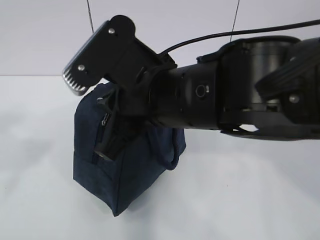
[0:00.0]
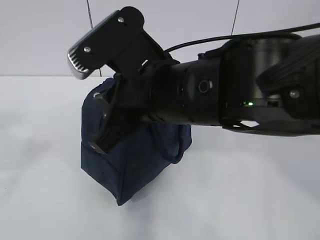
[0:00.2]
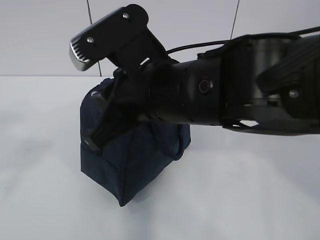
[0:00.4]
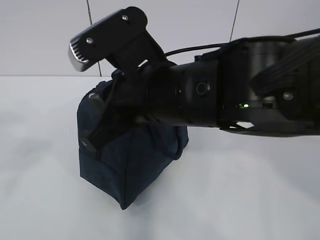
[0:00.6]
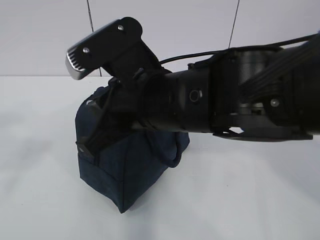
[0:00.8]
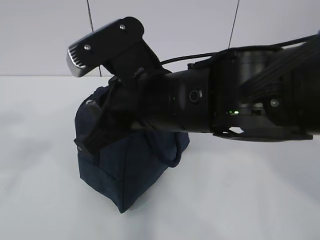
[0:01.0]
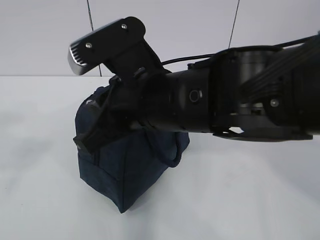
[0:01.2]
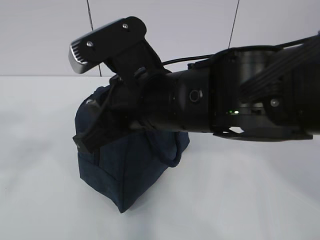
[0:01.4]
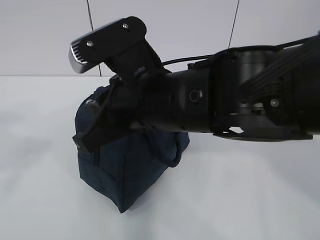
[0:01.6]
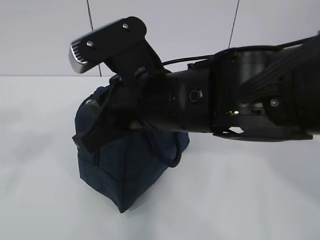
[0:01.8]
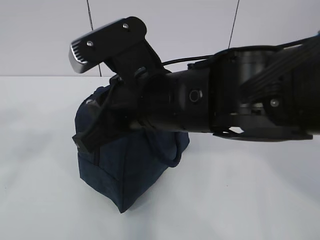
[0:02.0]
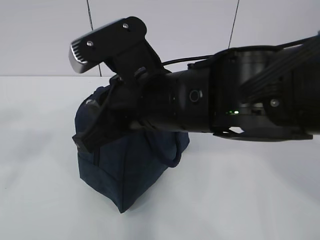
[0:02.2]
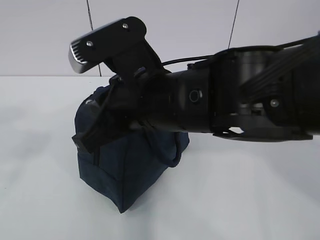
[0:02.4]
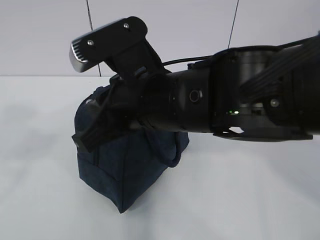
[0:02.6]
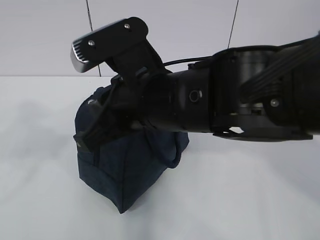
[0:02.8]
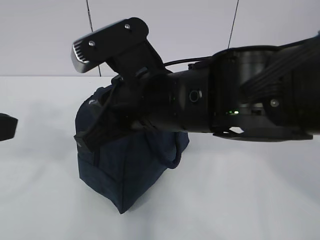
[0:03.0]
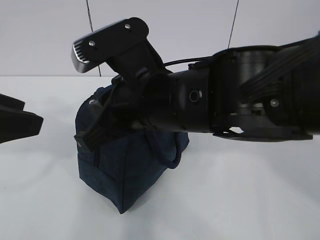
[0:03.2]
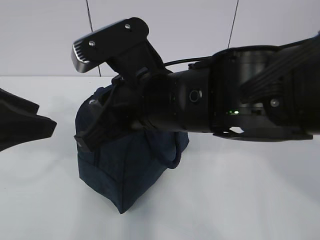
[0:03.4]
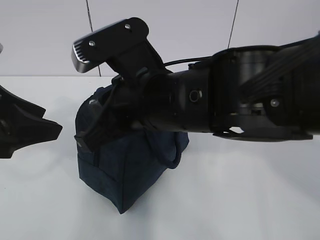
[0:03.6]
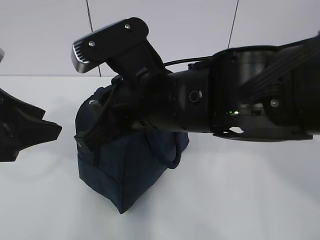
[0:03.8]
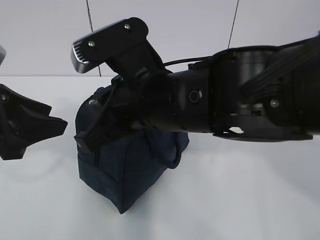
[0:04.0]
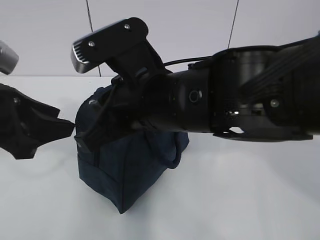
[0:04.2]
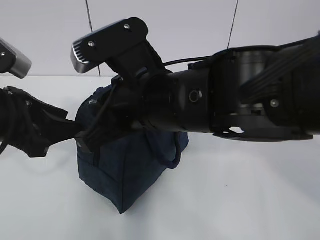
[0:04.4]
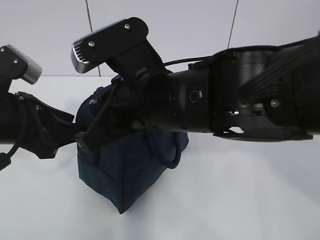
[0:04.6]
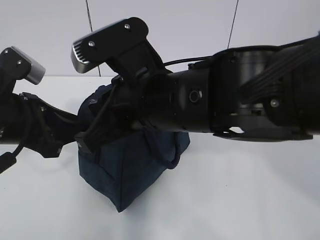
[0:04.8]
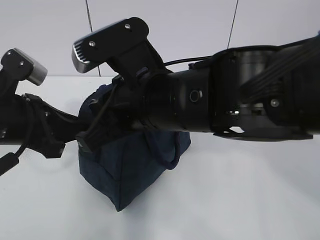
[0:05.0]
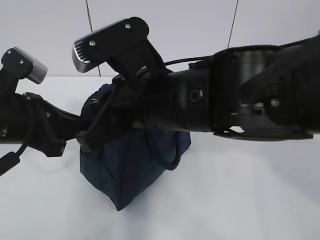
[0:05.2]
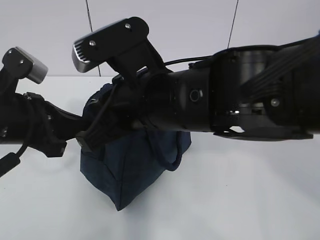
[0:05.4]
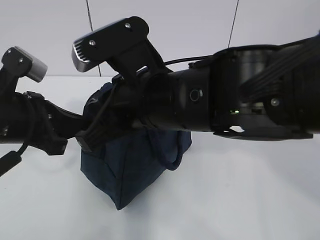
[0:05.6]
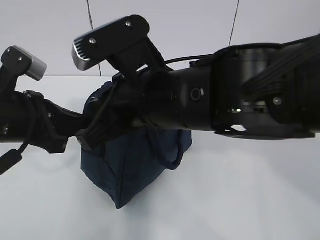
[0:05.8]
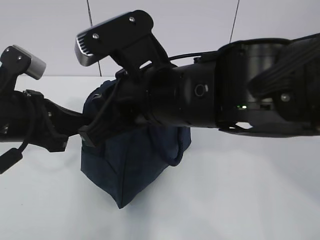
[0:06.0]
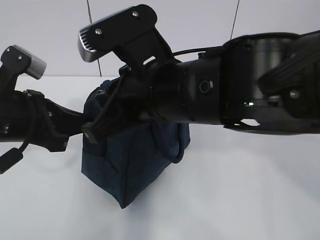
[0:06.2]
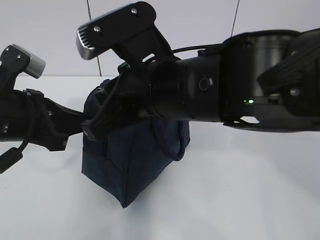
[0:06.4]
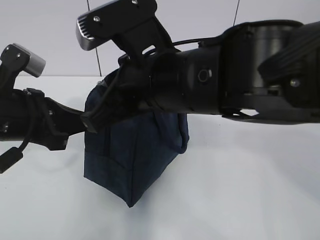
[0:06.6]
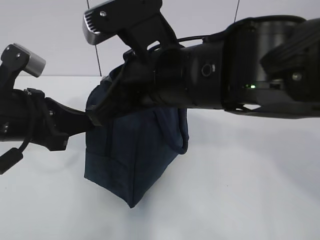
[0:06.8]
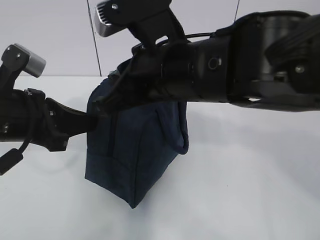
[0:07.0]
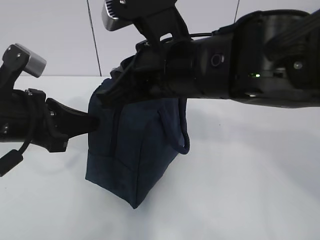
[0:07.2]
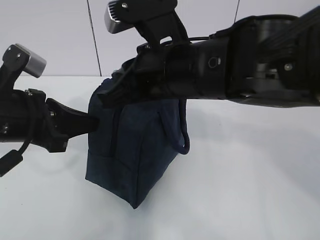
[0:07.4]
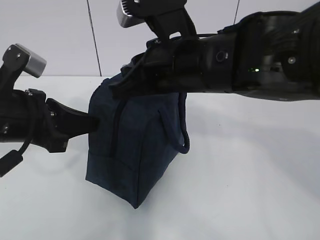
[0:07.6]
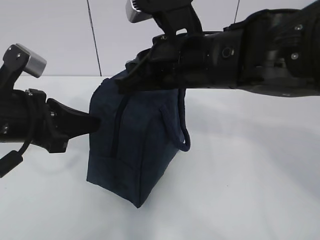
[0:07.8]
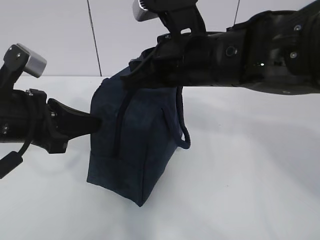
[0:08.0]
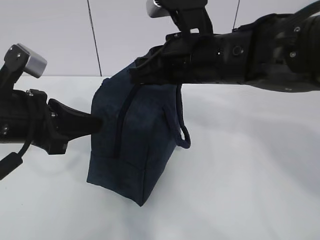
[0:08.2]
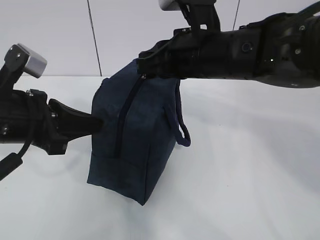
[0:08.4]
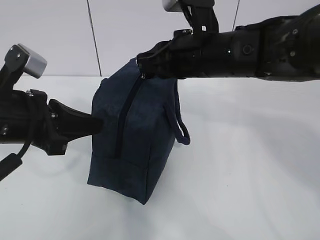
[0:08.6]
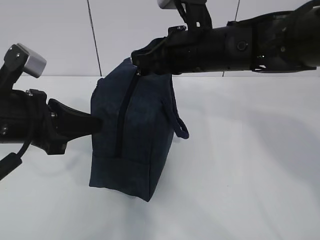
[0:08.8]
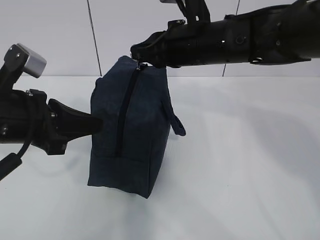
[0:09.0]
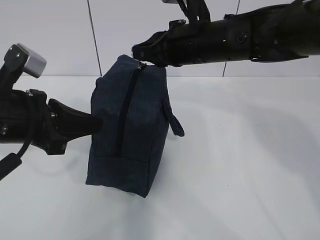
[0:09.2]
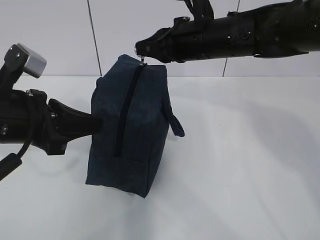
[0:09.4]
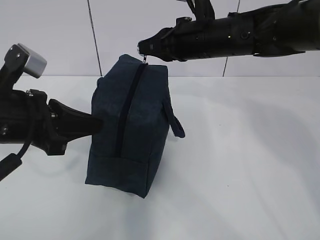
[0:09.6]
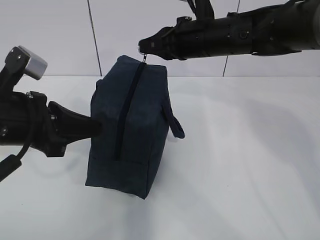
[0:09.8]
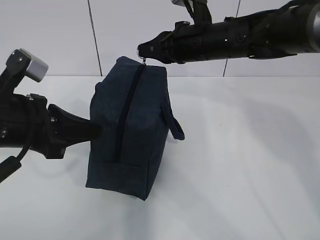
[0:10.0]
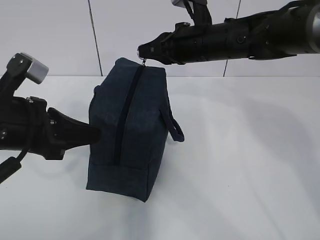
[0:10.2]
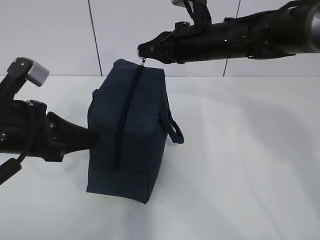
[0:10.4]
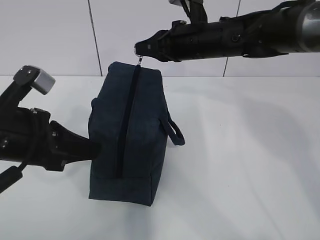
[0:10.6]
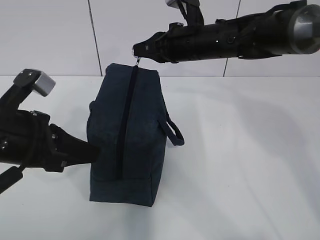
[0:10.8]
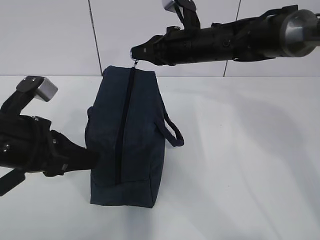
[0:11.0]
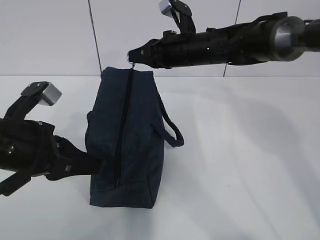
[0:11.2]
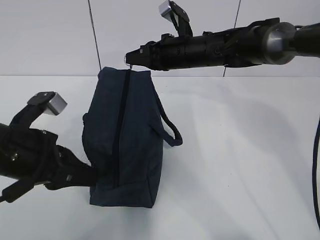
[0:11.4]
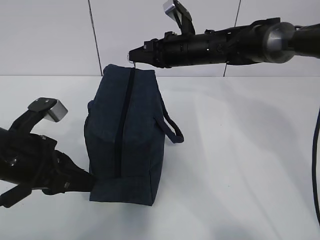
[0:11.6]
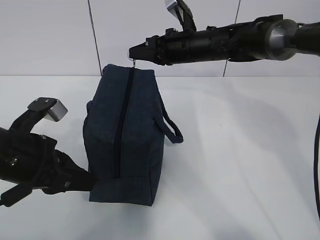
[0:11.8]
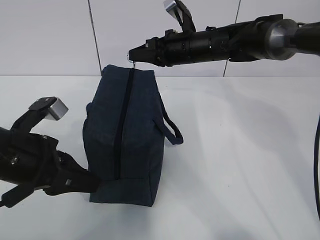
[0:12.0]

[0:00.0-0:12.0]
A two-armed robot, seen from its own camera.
Step, 0:00.0 to 0:02.4: Pull the zipper with your right hand.
Step, 0:02.8 to 0:03.2: Grab the lunch bag with your left hand.
0:01.6 to 0:03.0: The left gripper goes roughly 5 cm forward.
0:03.0 to 0:04.4: The left gripper heads forward and downward, covering roughly 15 cm.
0:04.4 to 0:06.0: The left gripper closes its fingers.
0:06.0 to 0:07.6: The right gripper ends up about 5 cm from where it was.
0:07.6 to 0:09.0: The right gripper heads forward, covering some 10 cm.
0:09.0 to 0:10.4: The right gripper travels forward by about 5 cm.
0:10.4 to 0:12.0: The right gripper is displaced forward by about 5 cm.

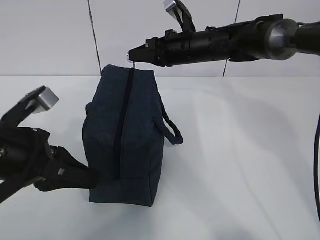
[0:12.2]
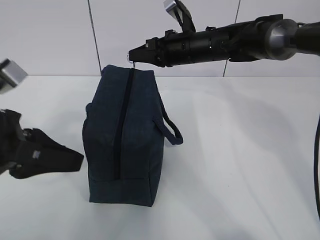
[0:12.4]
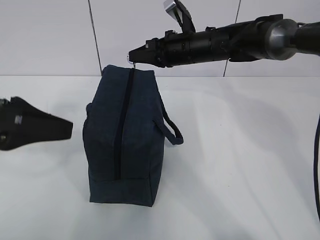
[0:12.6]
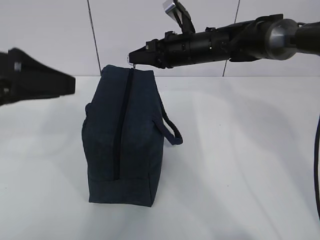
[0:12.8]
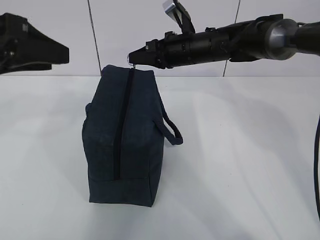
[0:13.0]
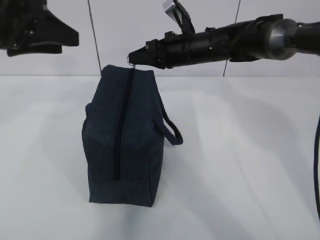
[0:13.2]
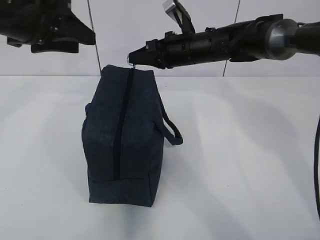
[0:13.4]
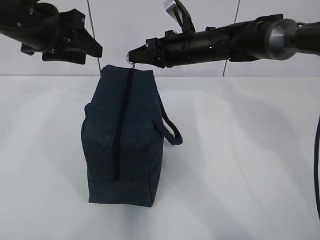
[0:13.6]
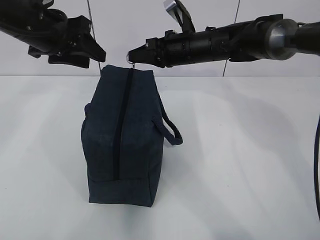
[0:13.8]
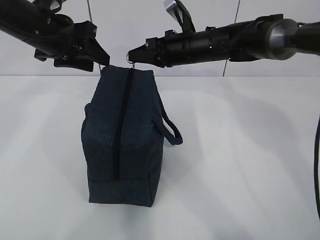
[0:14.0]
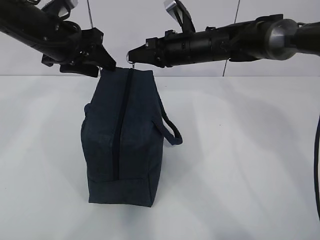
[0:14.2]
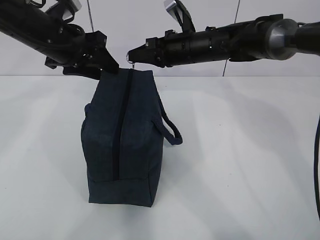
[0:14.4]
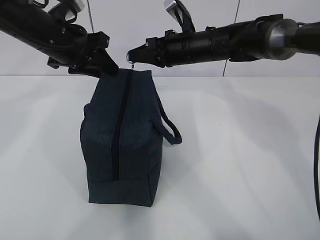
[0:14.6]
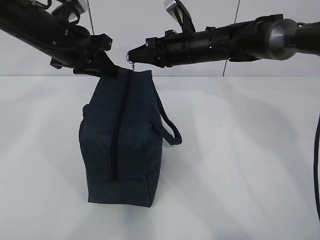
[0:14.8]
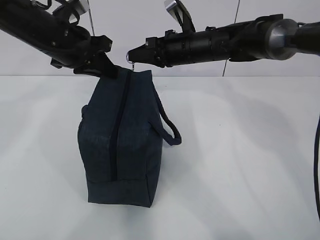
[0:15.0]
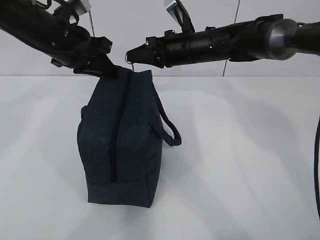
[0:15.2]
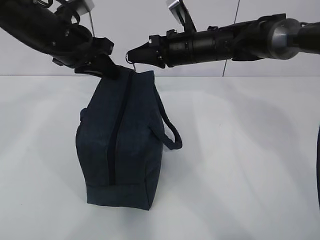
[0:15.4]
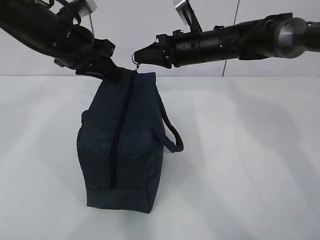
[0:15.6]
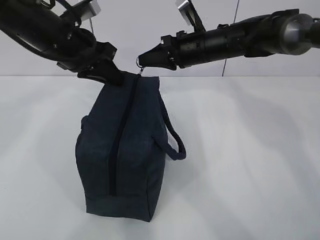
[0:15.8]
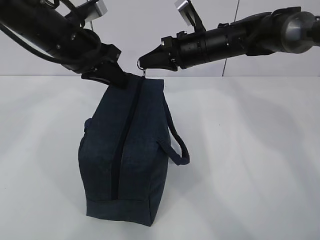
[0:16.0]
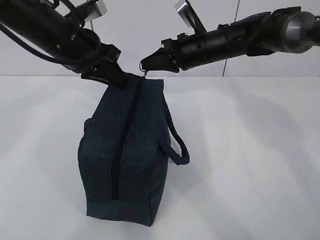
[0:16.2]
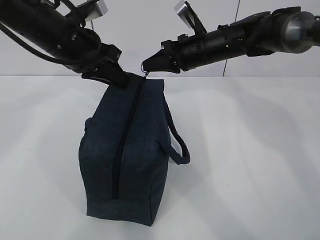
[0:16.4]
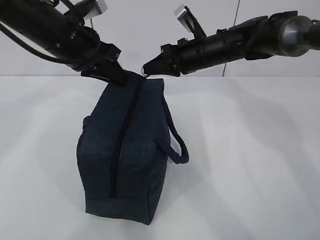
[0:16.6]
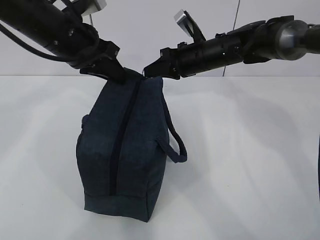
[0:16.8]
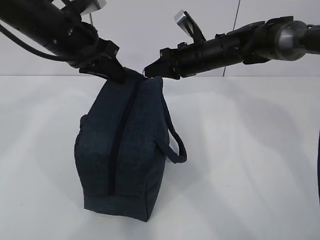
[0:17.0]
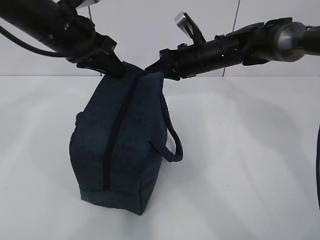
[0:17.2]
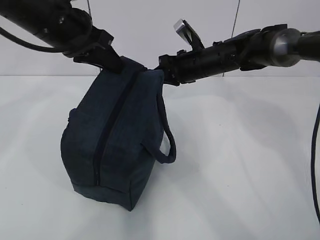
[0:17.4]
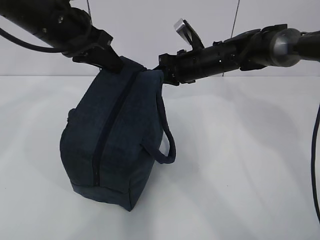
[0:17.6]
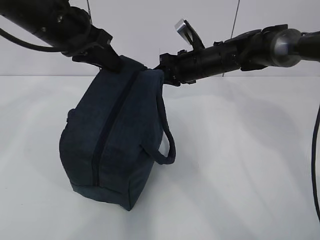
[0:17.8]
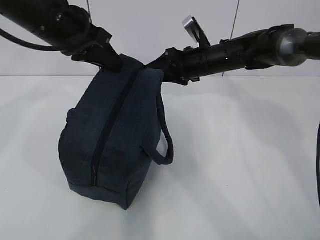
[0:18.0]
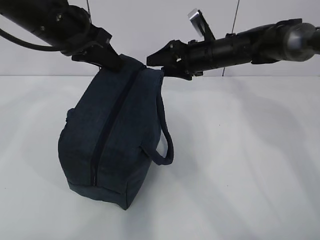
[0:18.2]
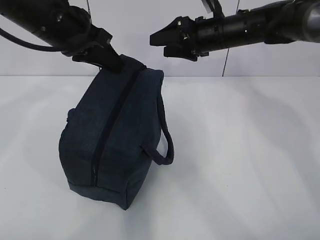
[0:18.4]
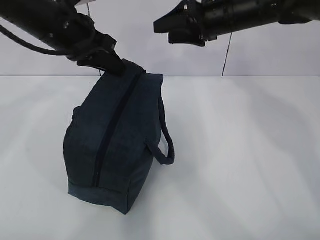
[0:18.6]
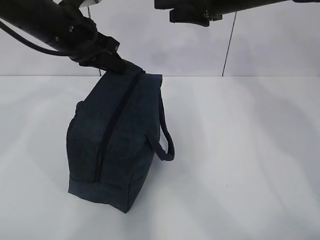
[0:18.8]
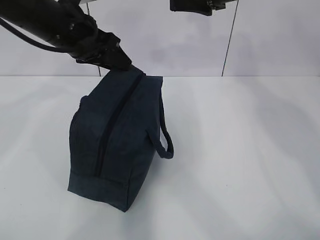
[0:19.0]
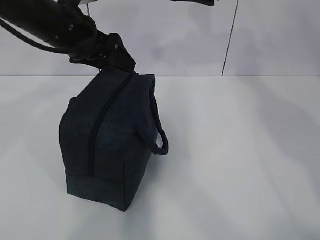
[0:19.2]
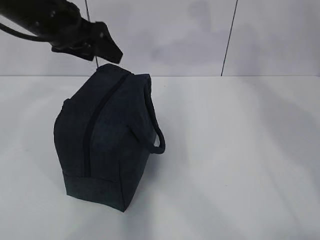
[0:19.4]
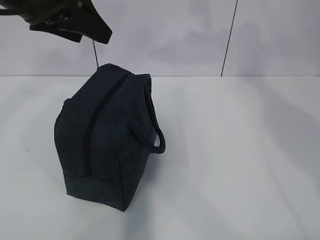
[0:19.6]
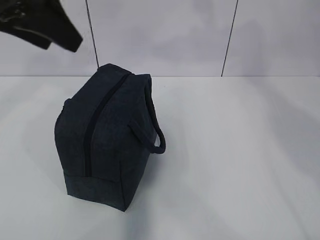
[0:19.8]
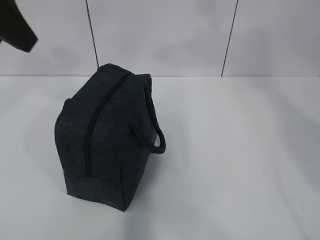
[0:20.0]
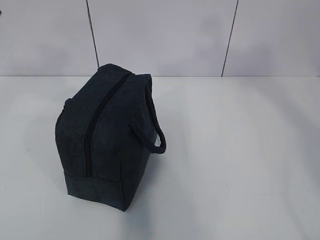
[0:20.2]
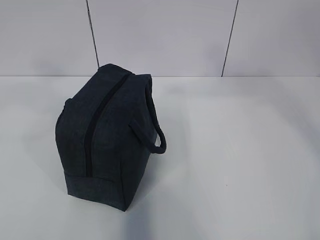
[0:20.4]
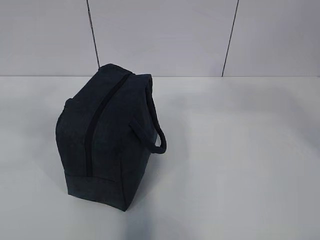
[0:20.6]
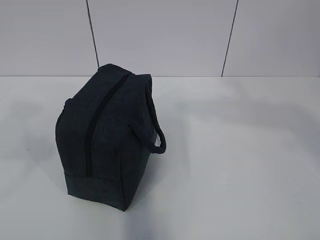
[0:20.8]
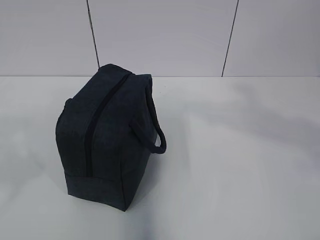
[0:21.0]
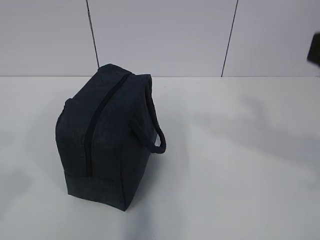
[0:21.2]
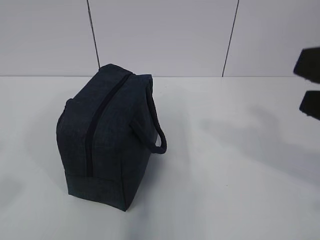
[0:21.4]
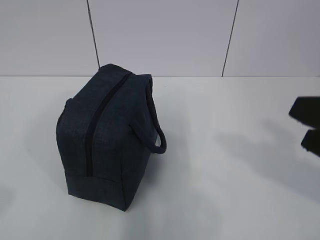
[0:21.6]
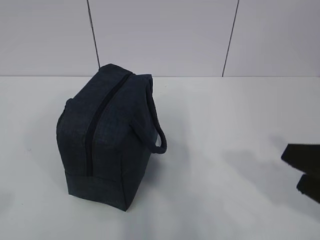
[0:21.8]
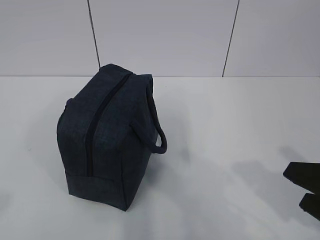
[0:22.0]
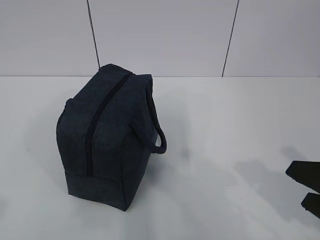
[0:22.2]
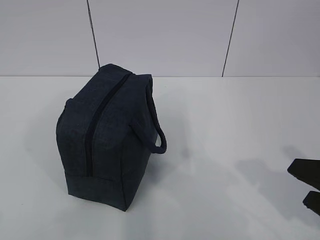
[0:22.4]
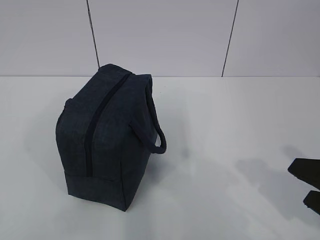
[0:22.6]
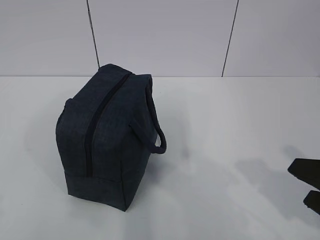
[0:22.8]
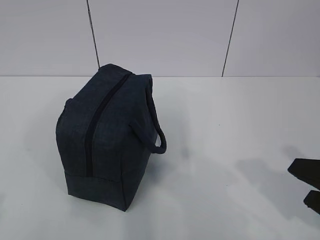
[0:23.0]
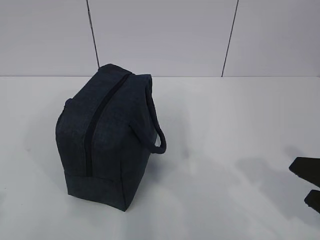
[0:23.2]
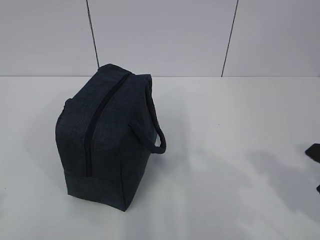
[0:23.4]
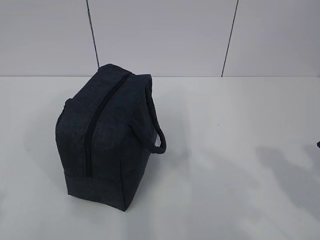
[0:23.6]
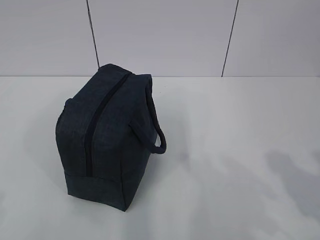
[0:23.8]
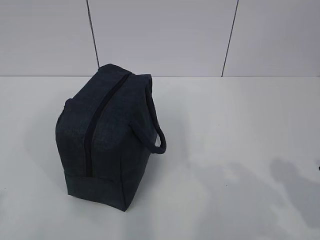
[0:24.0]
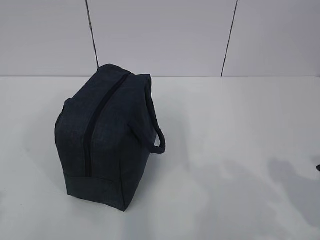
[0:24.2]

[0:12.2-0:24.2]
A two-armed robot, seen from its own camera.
0:12.2 to 0:13.8: The left gripper moves forward and upward, about 20 cm, and opens its fingers.
0:13.8 to 0:15.2: The left gripper closes.
0:15.2 to 0:16.6: The grippers stay close to where they were, moving slightly.
0:16.6 to 0:18.2: The right gripper opens up.
0:18.2 to 0:19.8: The left gripper heads upward and backward, covering approximately 10 cm, and opens up. The right gripper is displaced upward and backward by approximately 25 cm.
0:19.8 to 0:21.2: The left gripper travels backward and to the left by some 25 cm, while the right gripper goes approximately 25 cm backward.
0:21.2 to 0:22.6: The right gripper shifts roughly 15 cm downward.
